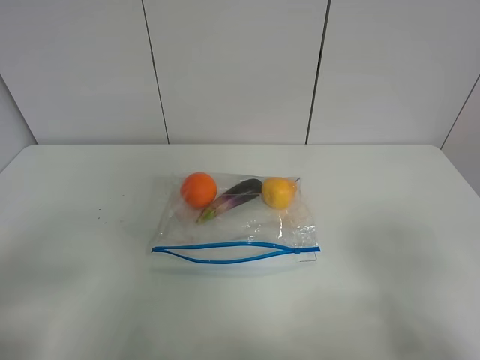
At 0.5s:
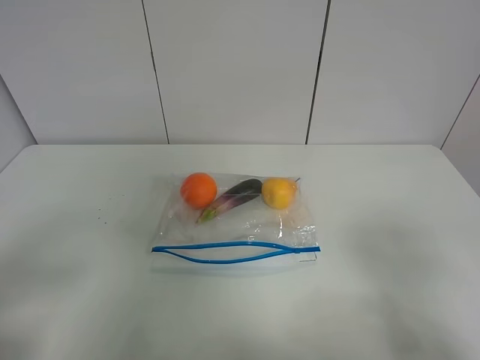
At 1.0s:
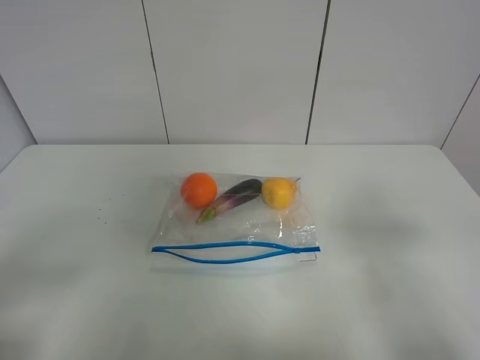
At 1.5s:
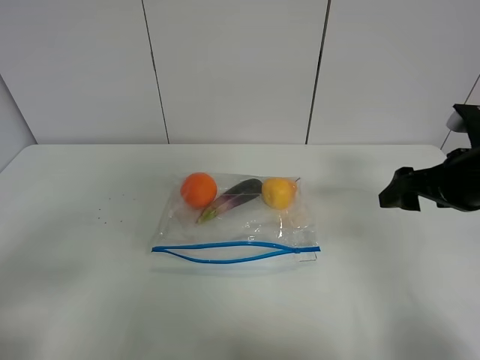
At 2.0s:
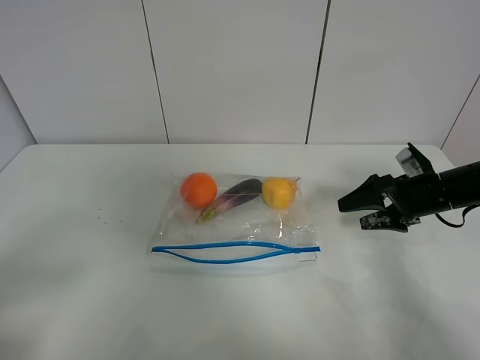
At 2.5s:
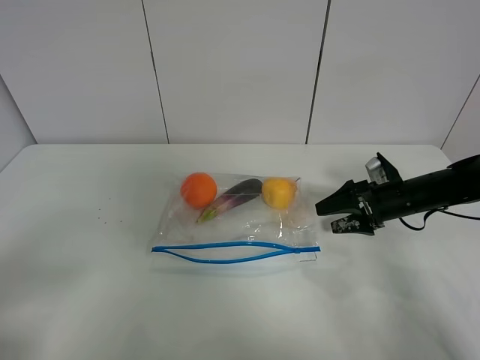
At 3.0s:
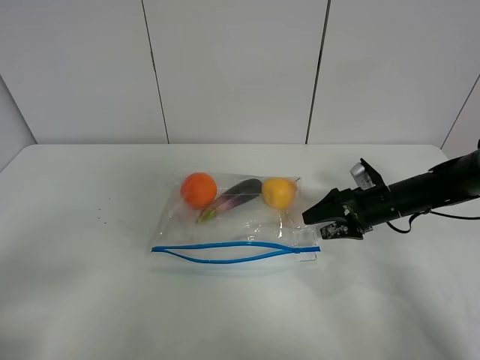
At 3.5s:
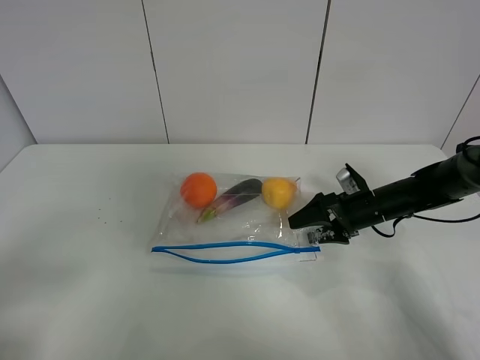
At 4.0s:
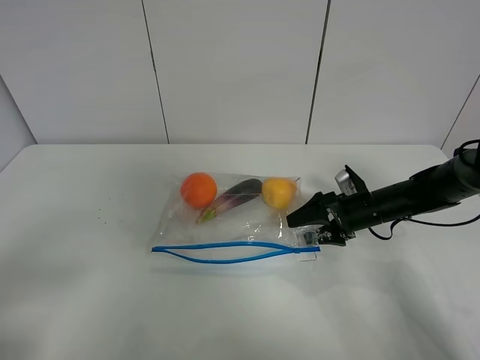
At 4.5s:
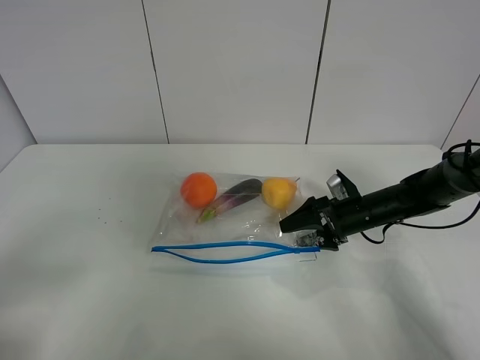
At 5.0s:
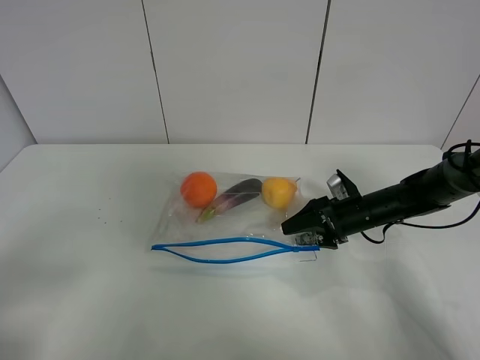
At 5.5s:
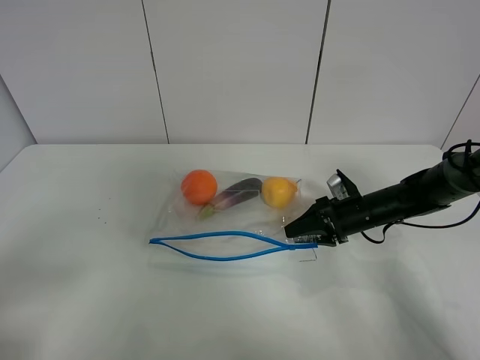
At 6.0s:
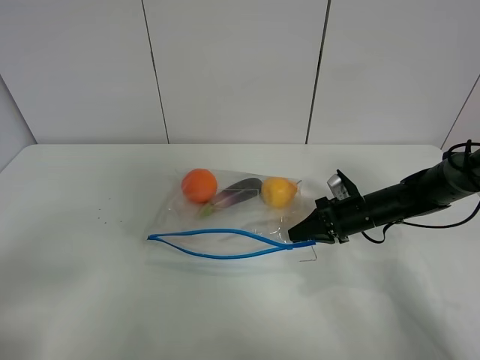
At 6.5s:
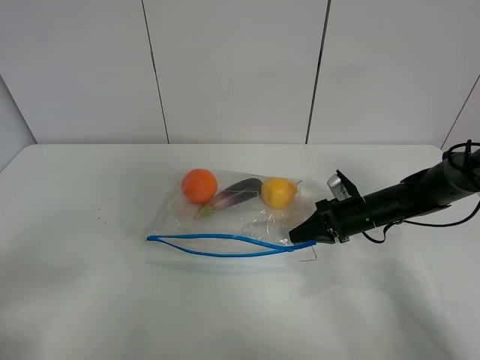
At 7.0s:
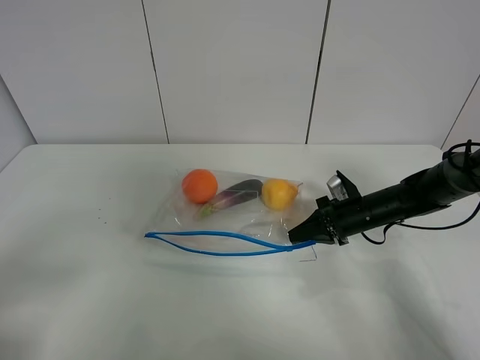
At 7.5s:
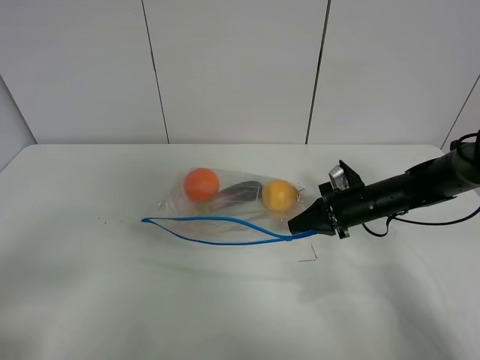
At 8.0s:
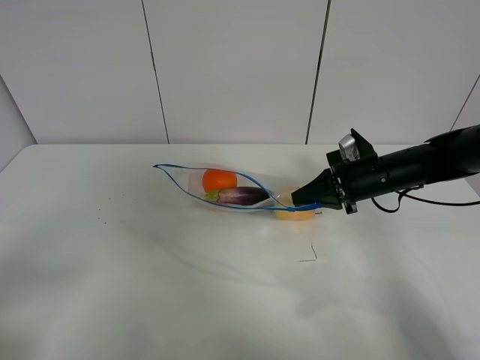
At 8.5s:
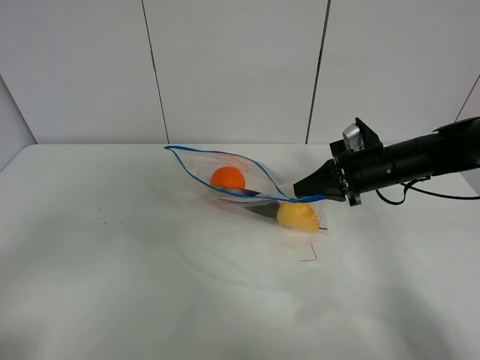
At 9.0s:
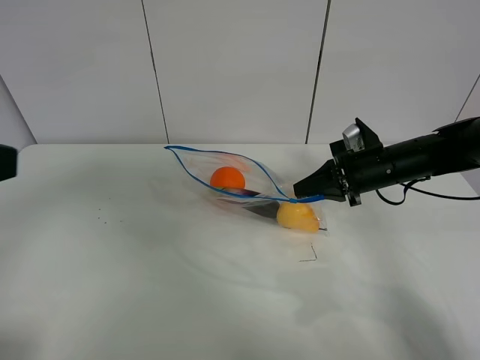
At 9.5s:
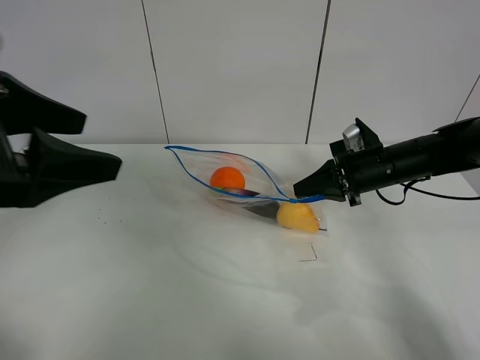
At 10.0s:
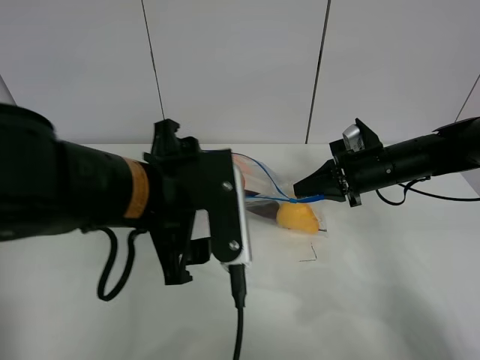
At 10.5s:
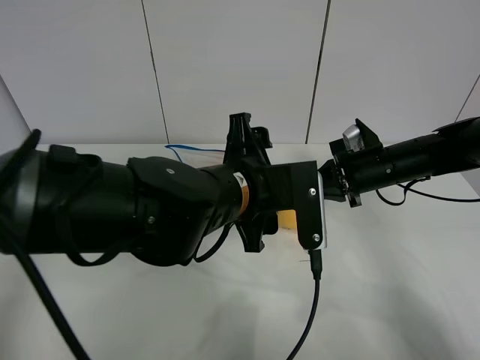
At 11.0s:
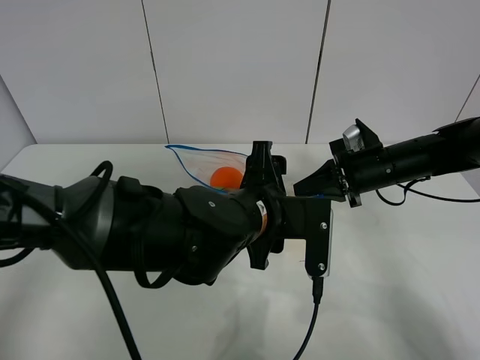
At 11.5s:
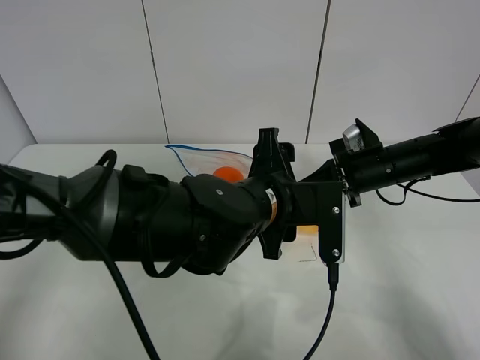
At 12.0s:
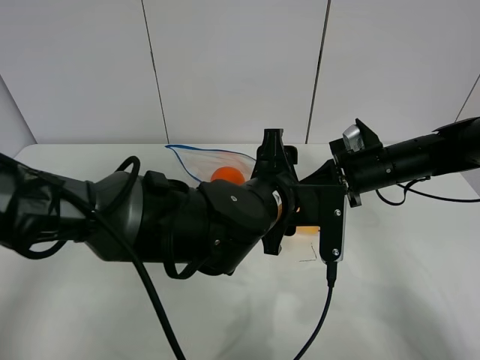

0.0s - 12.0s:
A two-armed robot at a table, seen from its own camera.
Step, 0.0s - 6.0s: Grasp the fruit bag with right gripper.
Step, 6.5s - 8.5s: Lift the fruit bag with your right gripper.
0.0s - 2.0s: The right gripper travels forward and downward by some 35 cm.
2.0s - 4.0s: The right gripper heads to the left and downward, covering about 10 cm.
4.0s - 6.0s: The right gripper closes up.
6.0s - 8.0s: The right gripper shifts some 10 cm upward.
8.0s - 10.0s: The left gripper travels to the right and forward by about 30 cm.
10.0s - 12.0s: The left gripper moves to the right and downward, roughly 15 cm.

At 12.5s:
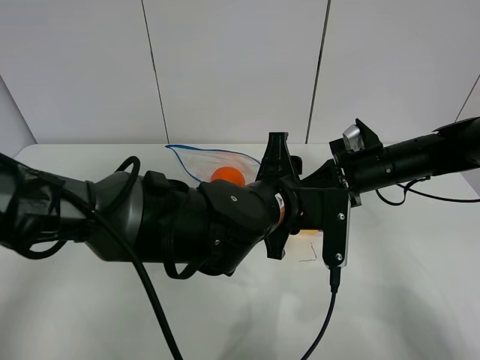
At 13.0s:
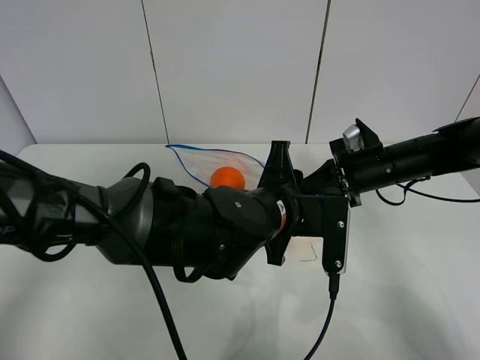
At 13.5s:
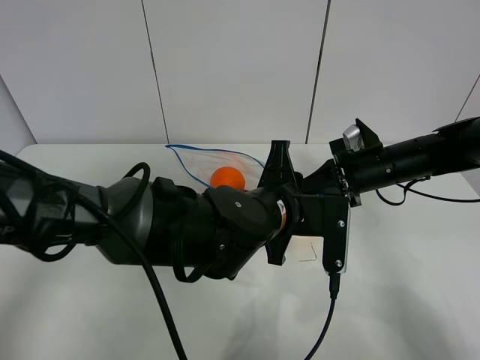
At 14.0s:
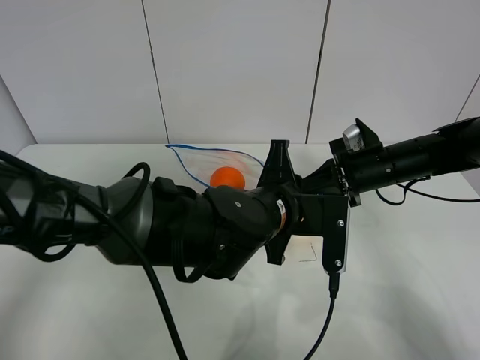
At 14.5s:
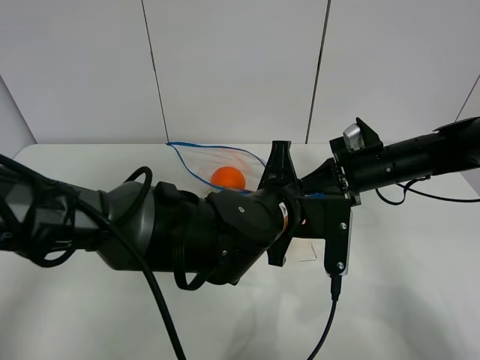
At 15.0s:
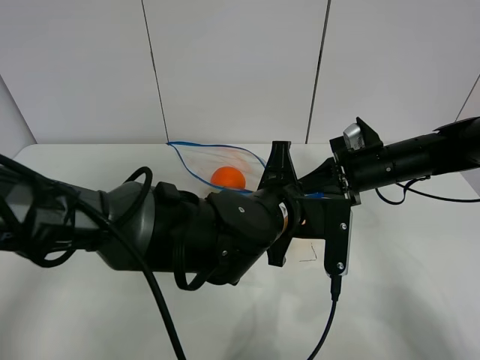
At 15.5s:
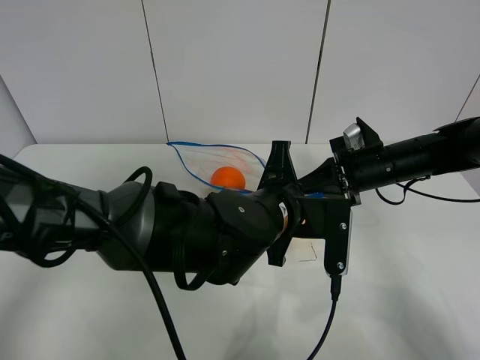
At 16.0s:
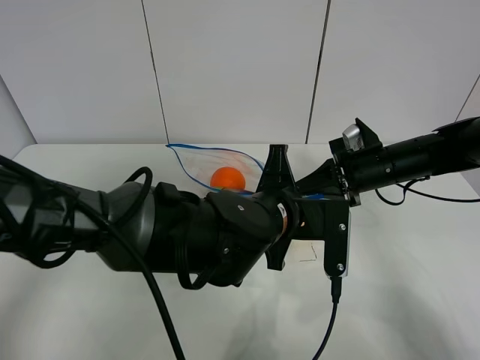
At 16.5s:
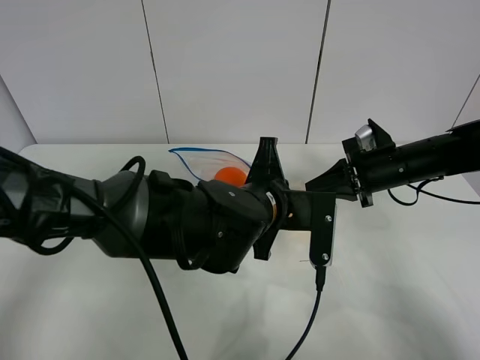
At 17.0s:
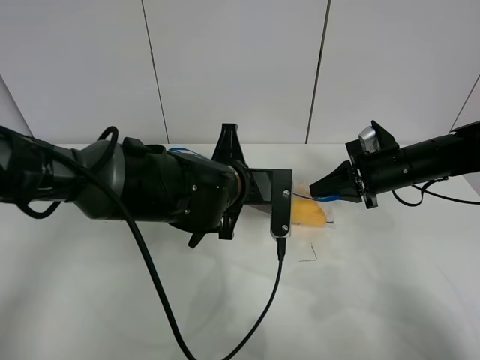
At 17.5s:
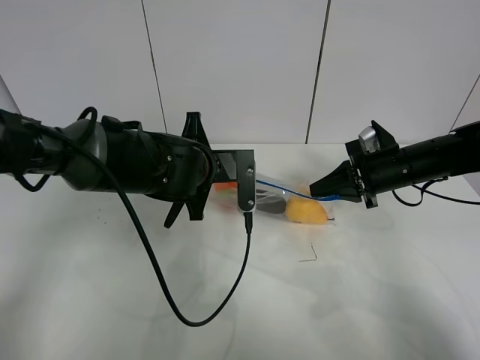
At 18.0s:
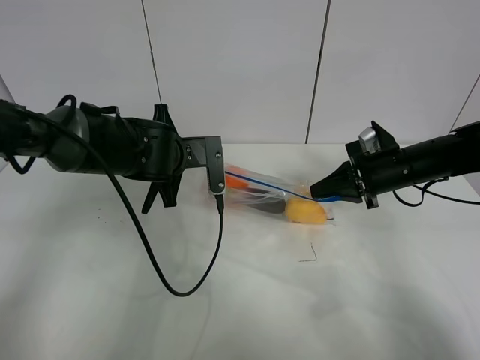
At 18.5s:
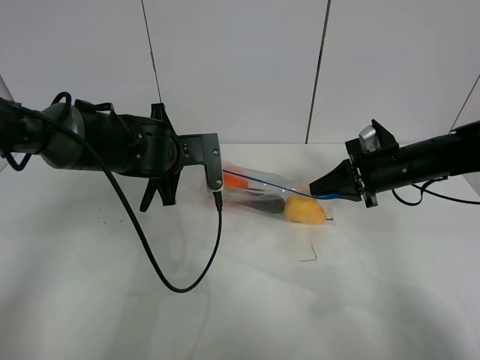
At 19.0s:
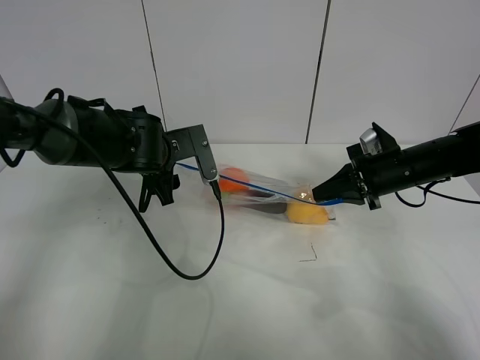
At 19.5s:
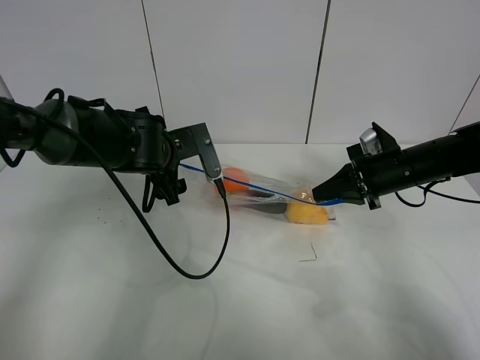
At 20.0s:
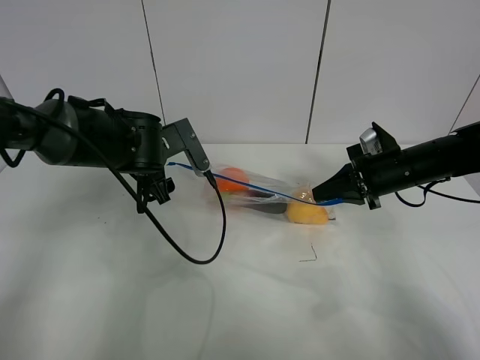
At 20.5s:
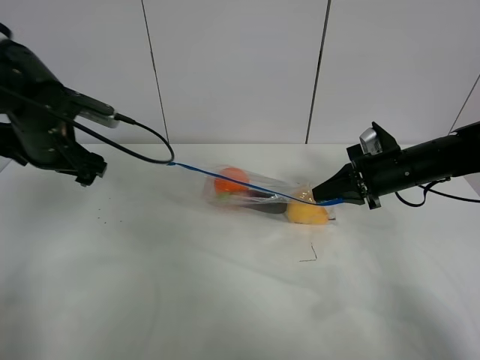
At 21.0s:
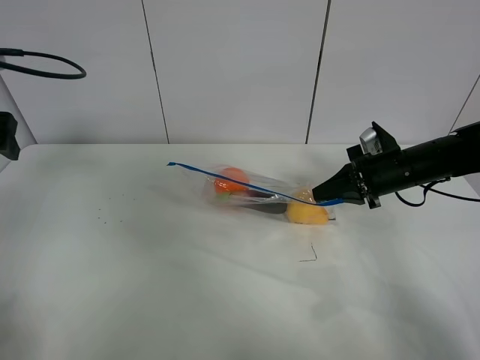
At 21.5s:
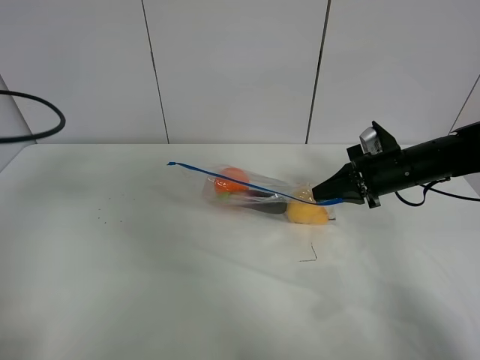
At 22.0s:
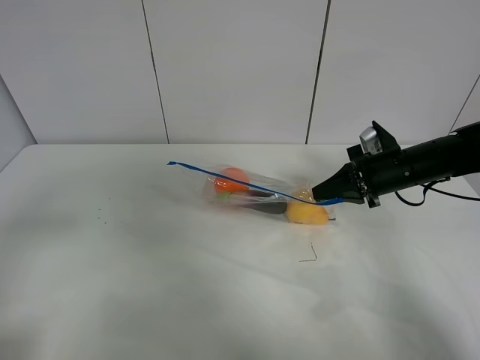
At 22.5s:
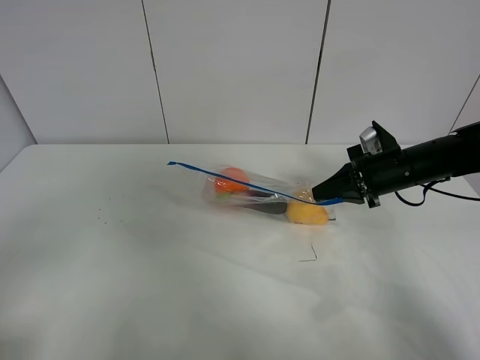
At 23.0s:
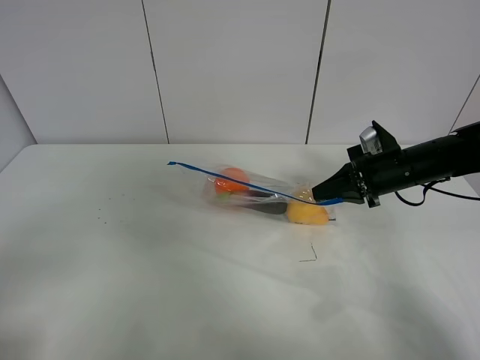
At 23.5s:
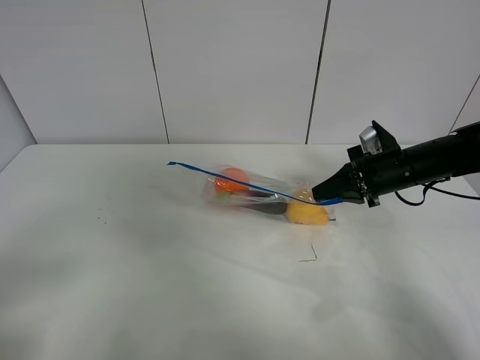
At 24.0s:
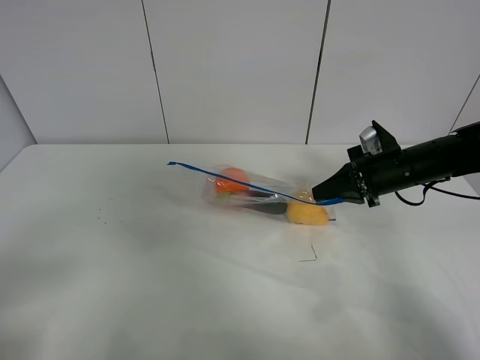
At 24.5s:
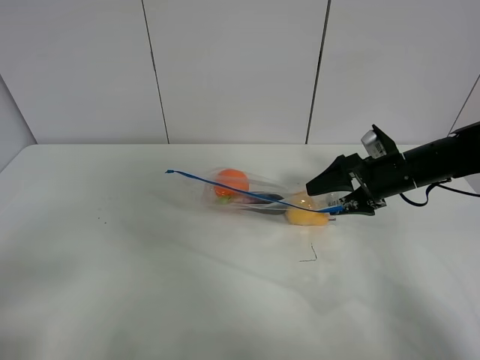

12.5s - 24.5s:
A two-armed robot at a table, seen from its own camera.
Step, 12.5s - 19.0s: Pull the fruit bag with left gripper.
12.5s - 14.5s: The left gripper closes up.
14.5s - 16.5s: The grippers make only small movements.
16.5s - 18.5s: The left gripper moves to the left and forward, some 15 cm.
18.5s - 20.5s: The left gripper is displaced to the left by about 15 cm, and opens its fingers.
20.5s - 22.5s: The left gripper goes about 35 cm backward.
22.5s - 24.5s: The right gripper opens.

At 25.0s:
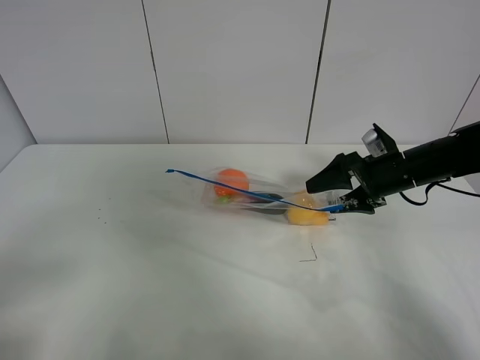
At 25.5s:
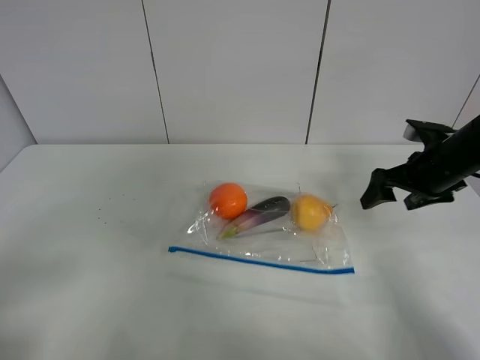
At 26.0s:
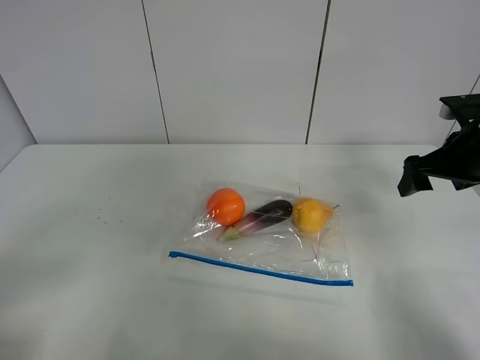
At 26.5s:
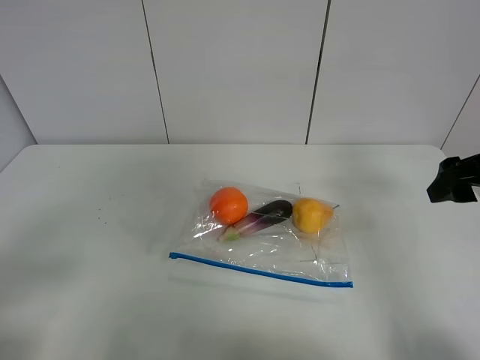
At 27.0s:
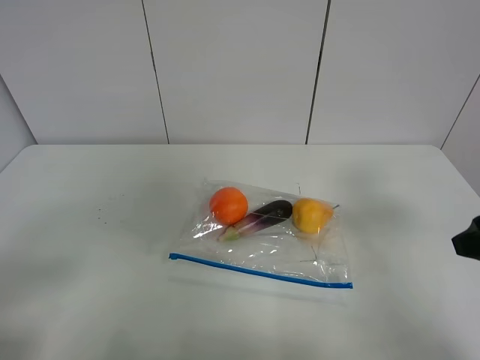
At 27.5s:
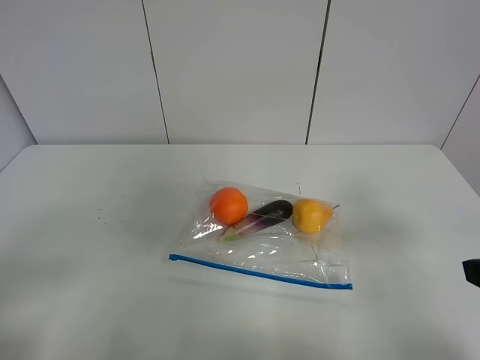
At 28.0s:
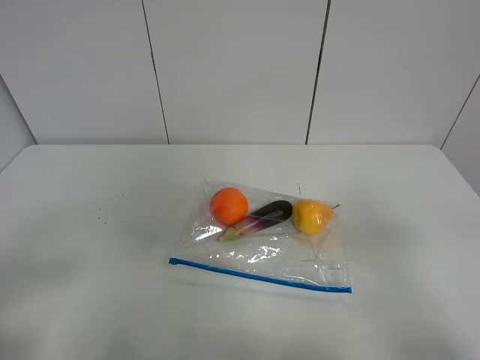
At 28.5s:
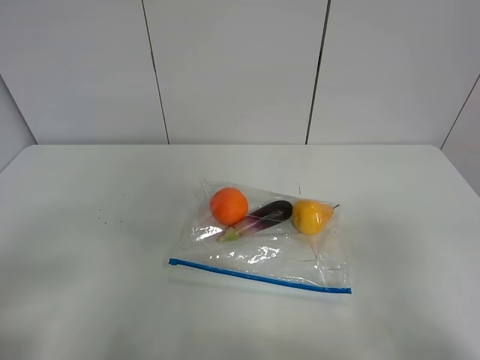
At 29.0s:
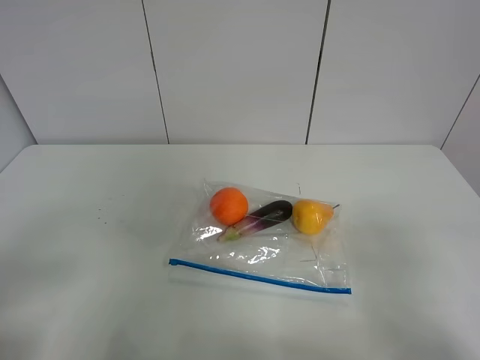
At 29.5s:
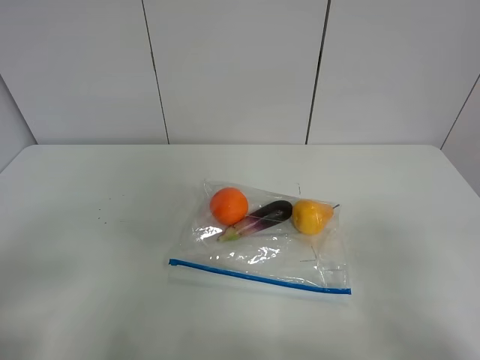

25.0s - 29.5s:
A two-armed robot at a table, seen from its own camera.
25.0s - 27.0s: The right gripper goes about 25 cm backward and upward.
27.0s - 29.5s: The right gripper shifts about 15 cm backward.
